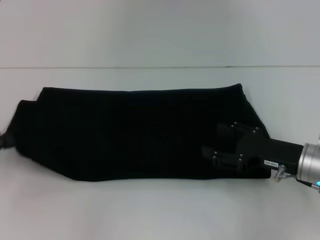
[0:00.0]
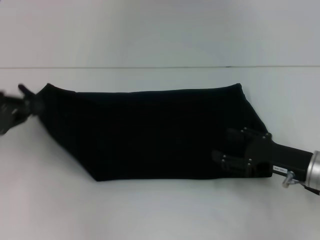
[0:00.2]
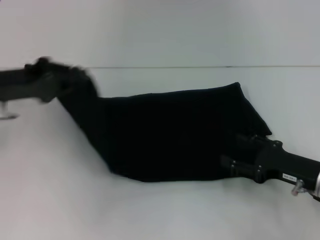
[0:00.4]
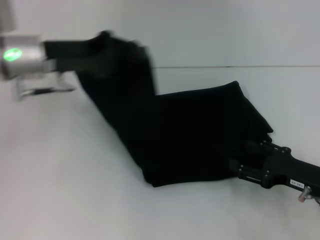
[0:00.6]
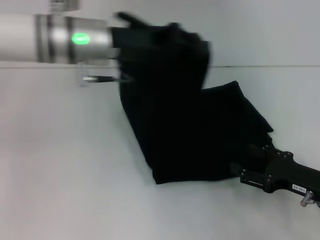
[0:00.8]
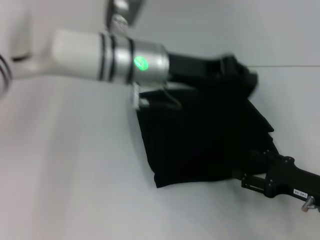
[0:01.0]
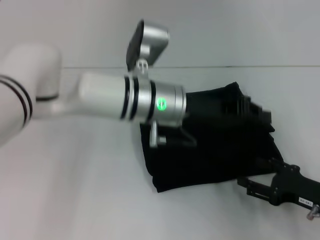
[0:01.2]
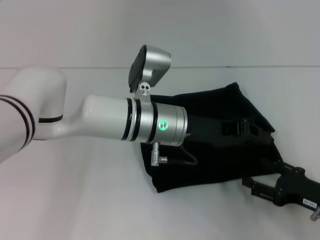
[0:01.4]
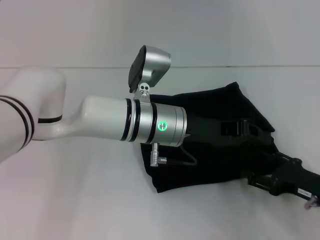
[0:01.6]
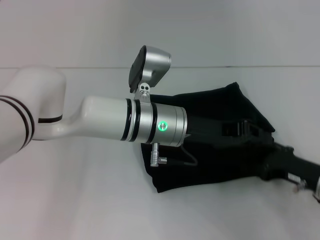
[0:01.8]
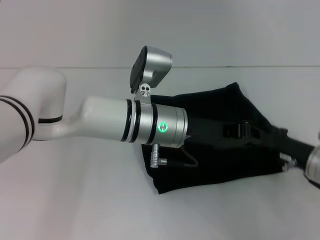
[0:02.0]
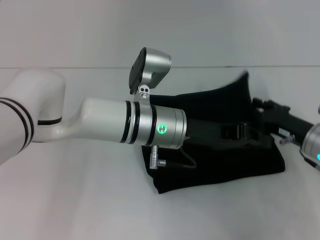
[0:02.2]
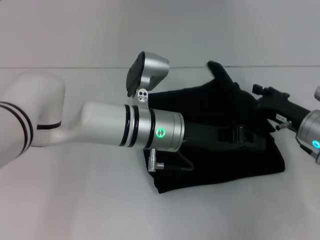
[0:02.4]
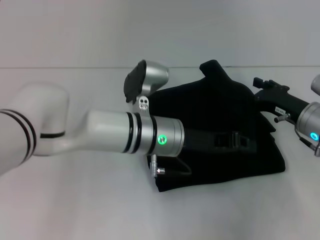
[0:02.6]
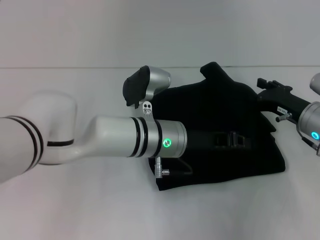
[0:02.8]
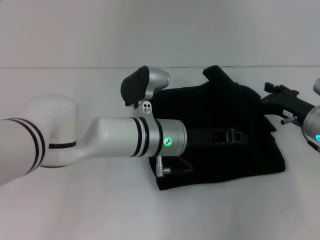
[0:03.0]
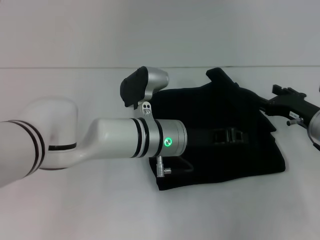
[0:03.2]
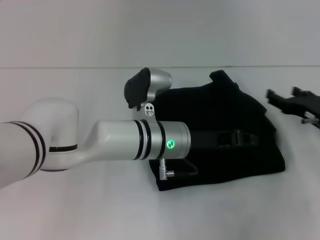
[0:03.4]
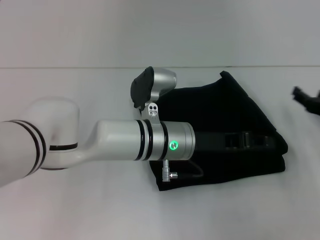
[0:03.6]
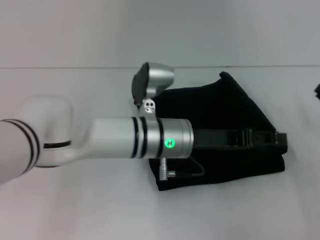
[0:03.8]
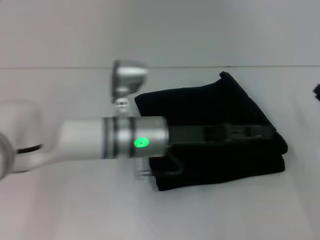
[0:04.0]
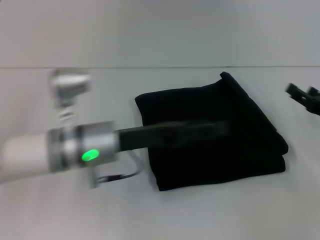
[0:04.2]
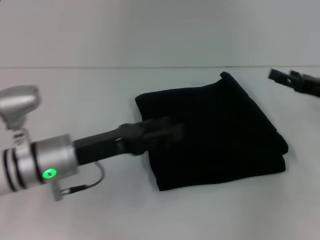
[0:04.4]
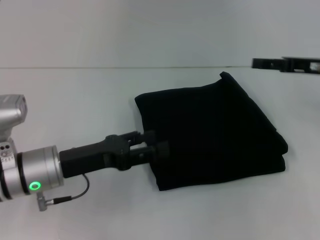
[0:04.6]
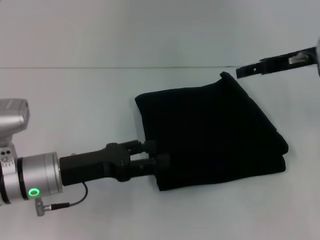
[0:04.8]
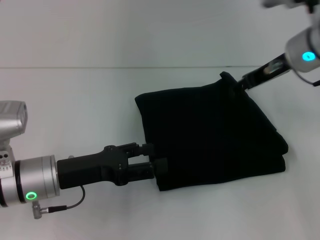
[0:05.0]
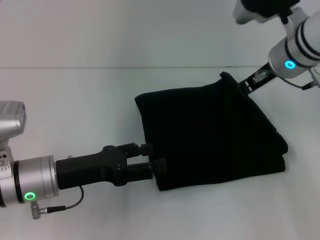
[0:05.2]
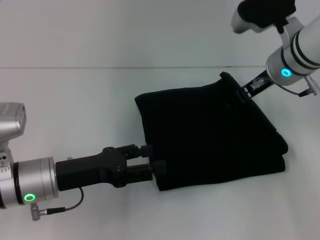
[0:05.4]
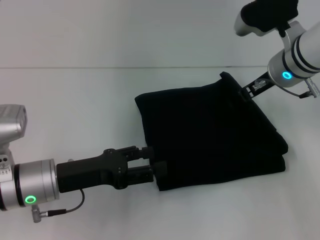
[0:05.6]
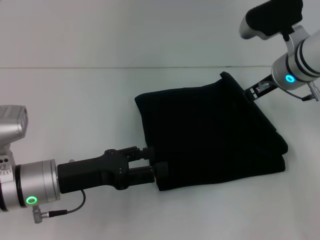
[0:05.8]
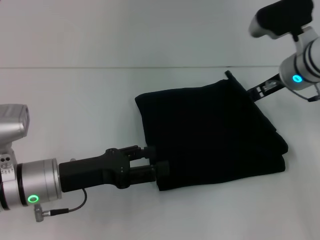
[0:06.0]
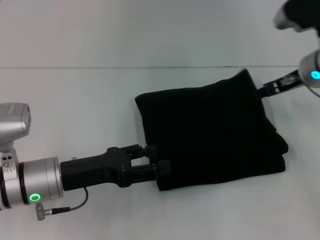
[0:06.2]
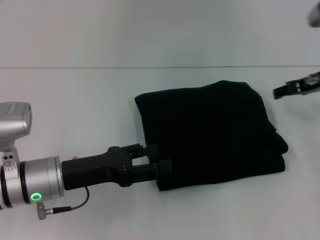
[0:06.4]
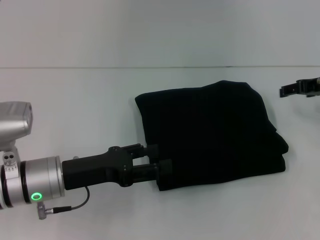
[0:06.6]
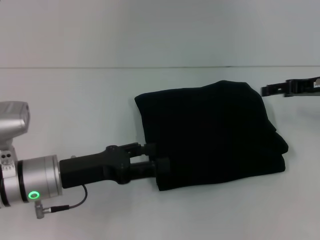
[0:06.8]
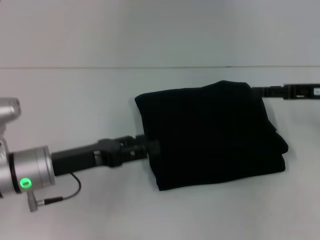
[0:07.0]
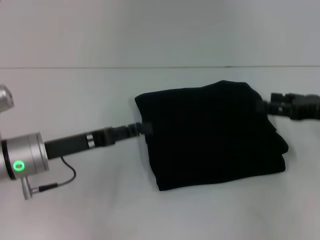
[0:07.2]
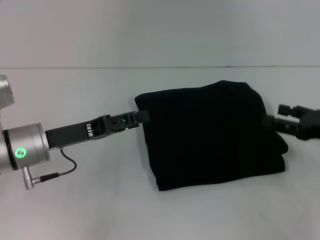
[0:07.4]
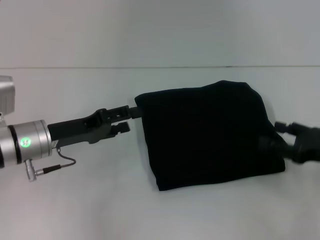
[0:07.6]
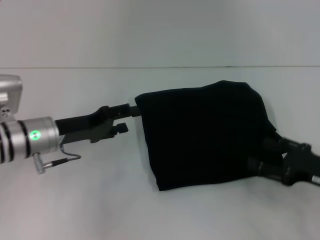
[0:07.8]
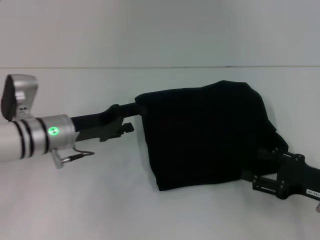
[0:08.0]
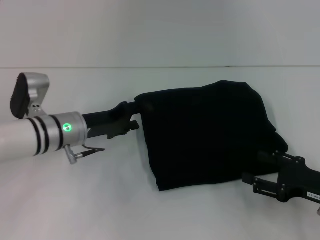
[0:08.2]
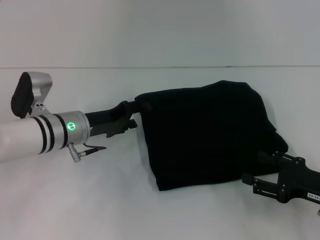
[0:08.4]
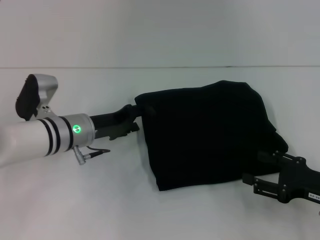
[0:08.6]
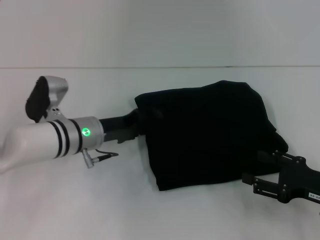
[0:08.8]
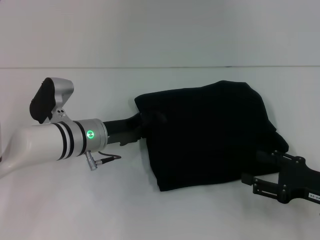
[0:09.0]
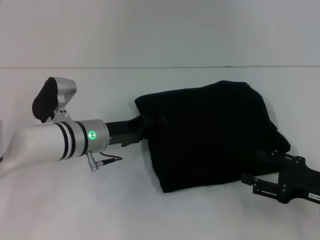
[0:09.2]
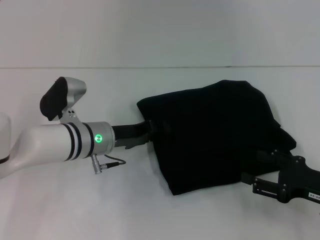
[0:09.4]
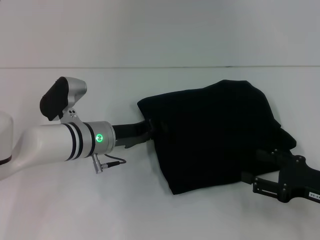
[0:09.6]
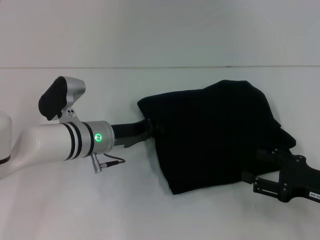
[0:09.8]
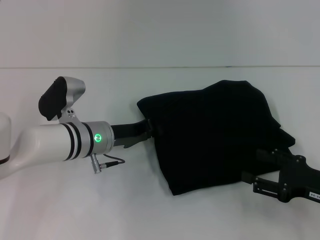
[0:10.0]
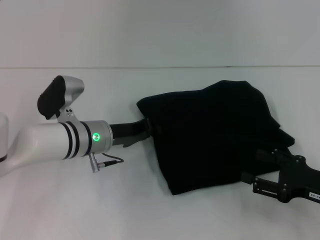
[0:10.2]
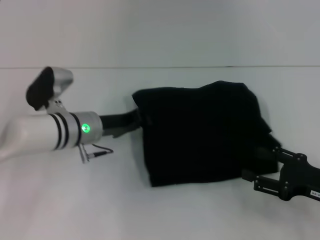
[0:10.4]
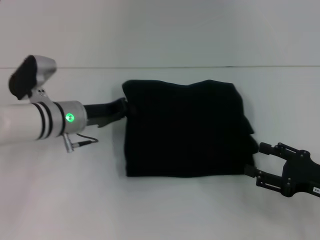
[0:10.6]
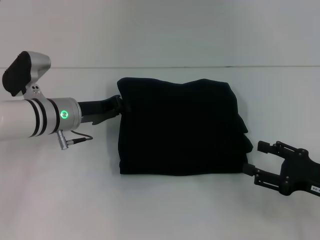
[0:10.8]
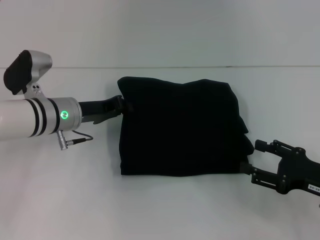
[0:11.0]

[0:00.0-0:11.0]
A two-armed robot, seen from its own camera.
Step, 0:00.0 to 0:04.2: Fold the clothes with your left hand.
0:00.0 to 0:01.6: The left gripper moves to the right, approximately 35 cm. Meanwhile the right gripper travels backward by roughly 5 cm.
0:01.6 to 0:03.2: The right gripper is displaced forward by about 10 cm.
0:03.2 to 0:04.8: The left gripper shifts approximately 20 cm to the left and backward, and opens, while the right gripper moves upward, about 15 cm.
0:04.8 to 0:06.2: The right gripper goes to the left and returns, approximately 10 cm each way.
0:06.2 to 0:07.8: The right gripper moves backward, downward and to the right, roughly 20 cm, while the left gripper heads forward, covering some 5 cm.
0:07.8 to 0:09.4: The left gripper moves to the right, roughly 10 cm.
0:09.4 to 0:11.0: The left gripper heads to the left, covering roughly 5 cm, and closes.

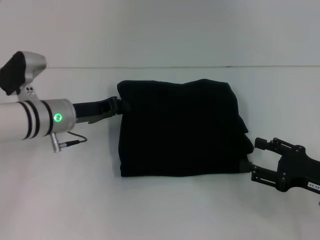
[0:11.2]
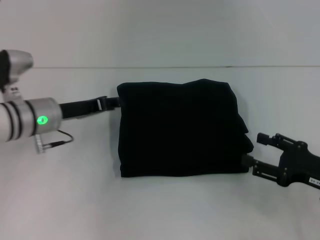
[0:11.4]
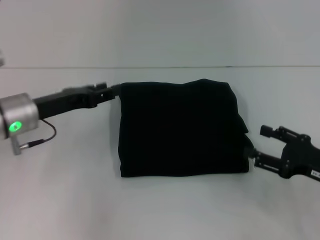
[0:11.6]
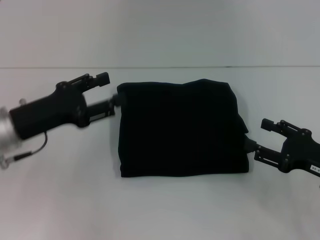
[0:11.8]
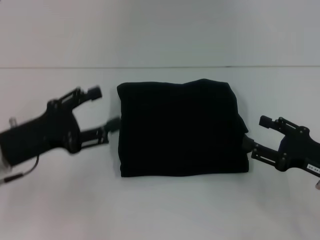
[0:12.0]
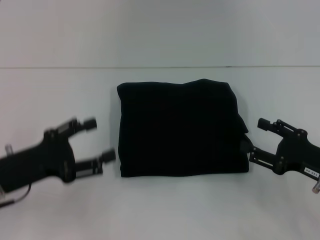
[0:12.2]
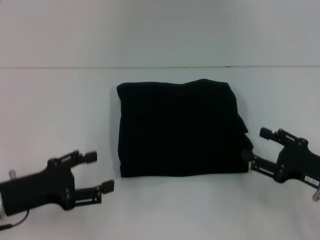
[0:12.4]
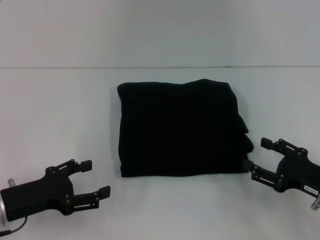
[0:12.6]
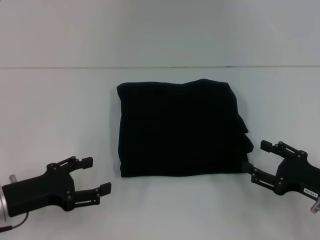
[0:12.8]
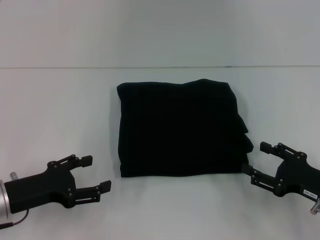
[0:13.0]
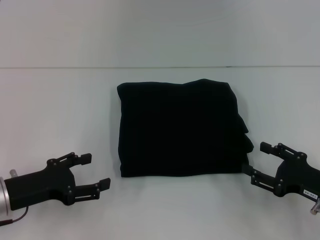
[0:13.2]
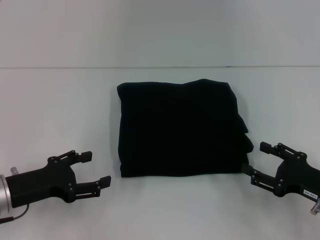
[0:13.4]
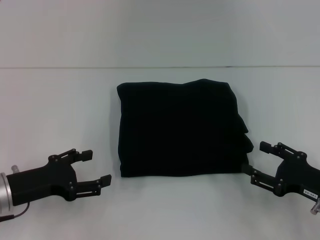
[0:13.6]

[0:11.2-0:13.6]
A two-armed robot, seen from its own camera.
0:11.2 to 0:12.4: The left gripper moves backward and to the left, some 15 cm, and opens.
0:12.4 to 0:13.6: There are only small adjustments of the grippers.

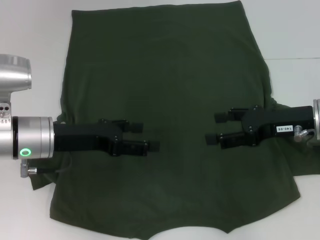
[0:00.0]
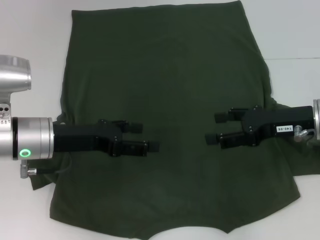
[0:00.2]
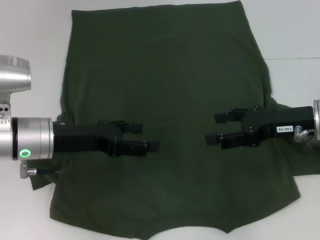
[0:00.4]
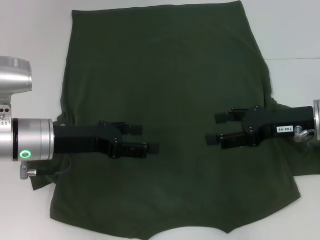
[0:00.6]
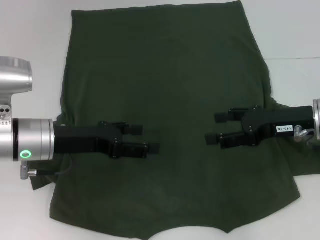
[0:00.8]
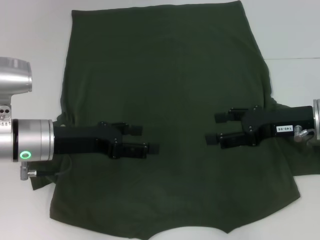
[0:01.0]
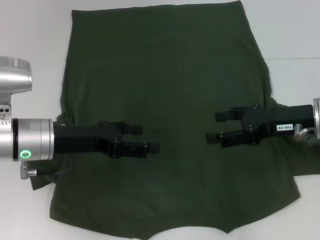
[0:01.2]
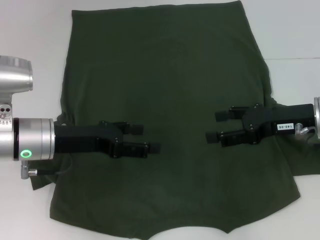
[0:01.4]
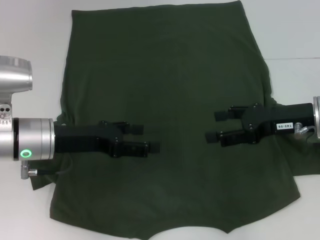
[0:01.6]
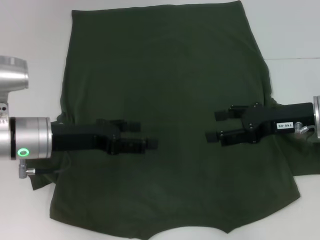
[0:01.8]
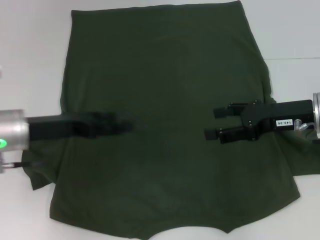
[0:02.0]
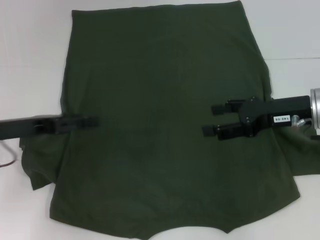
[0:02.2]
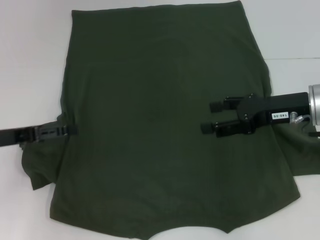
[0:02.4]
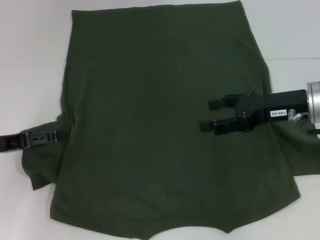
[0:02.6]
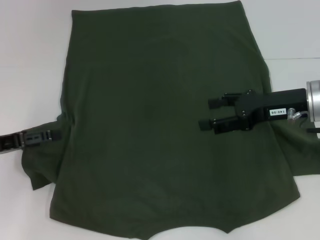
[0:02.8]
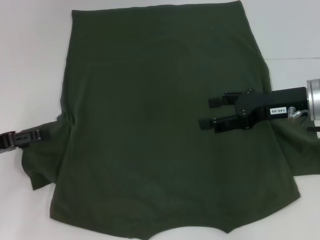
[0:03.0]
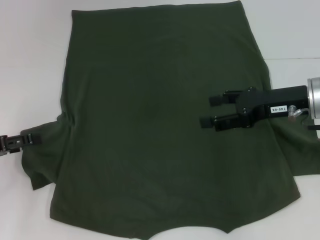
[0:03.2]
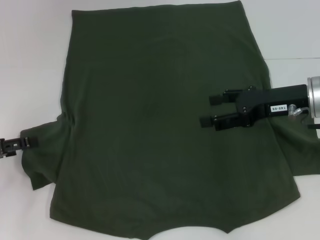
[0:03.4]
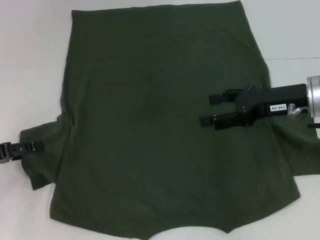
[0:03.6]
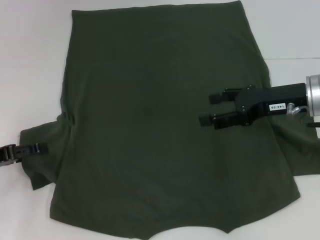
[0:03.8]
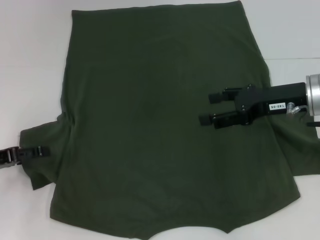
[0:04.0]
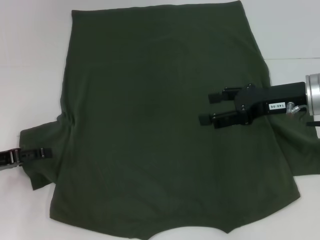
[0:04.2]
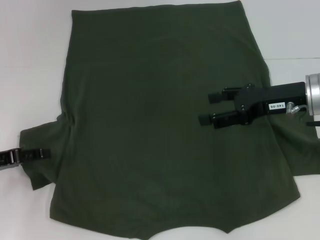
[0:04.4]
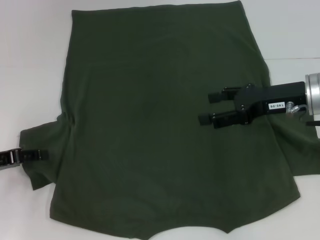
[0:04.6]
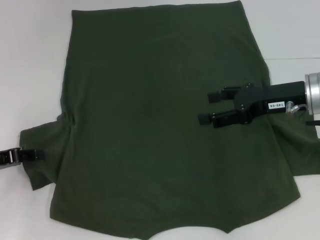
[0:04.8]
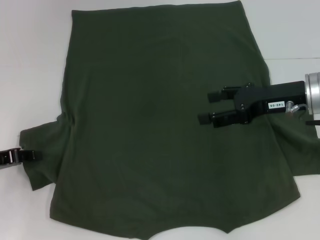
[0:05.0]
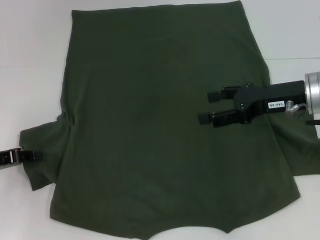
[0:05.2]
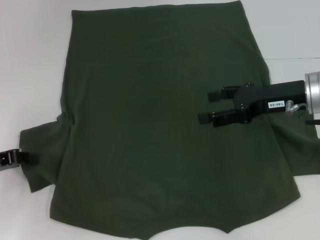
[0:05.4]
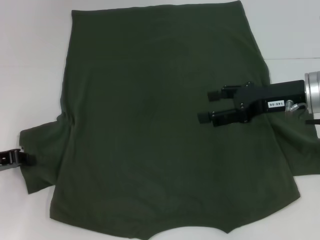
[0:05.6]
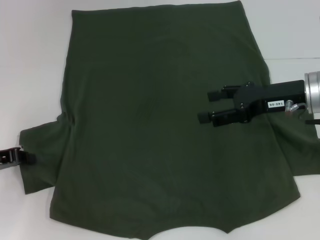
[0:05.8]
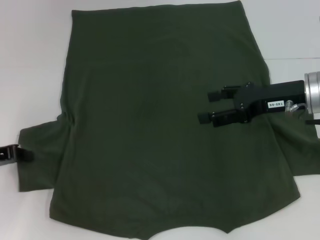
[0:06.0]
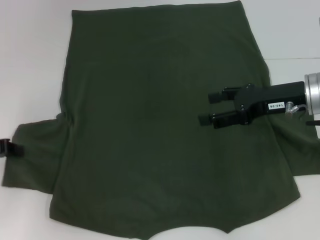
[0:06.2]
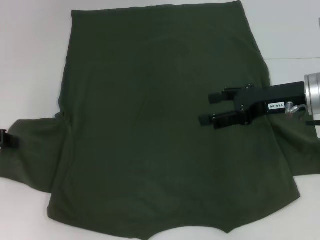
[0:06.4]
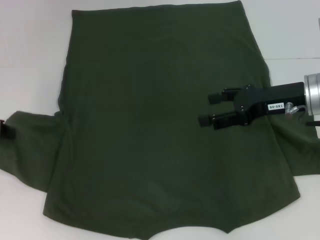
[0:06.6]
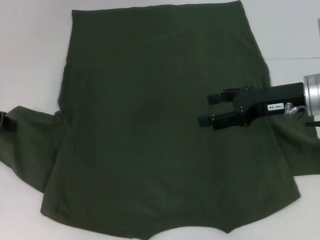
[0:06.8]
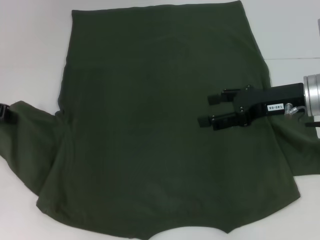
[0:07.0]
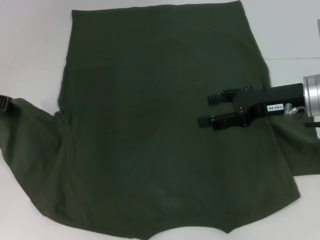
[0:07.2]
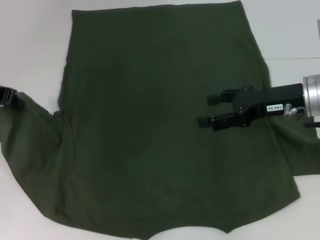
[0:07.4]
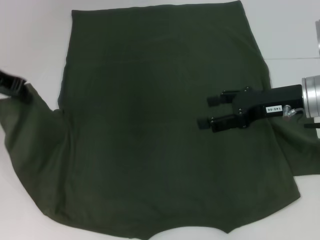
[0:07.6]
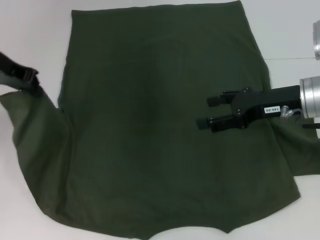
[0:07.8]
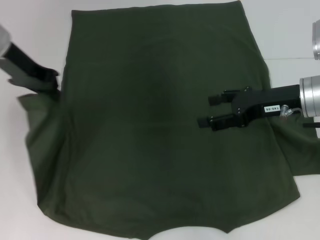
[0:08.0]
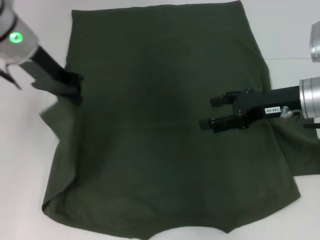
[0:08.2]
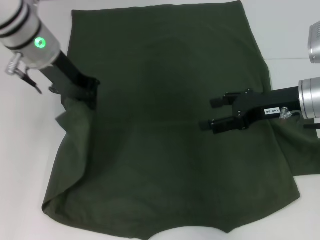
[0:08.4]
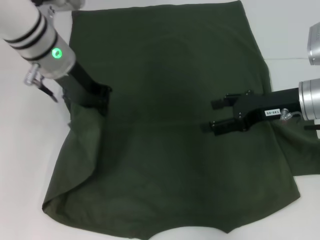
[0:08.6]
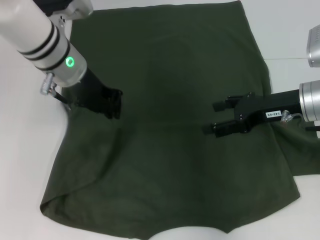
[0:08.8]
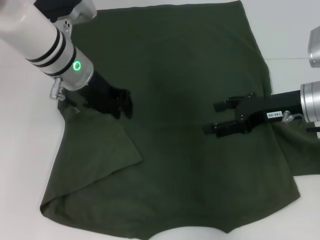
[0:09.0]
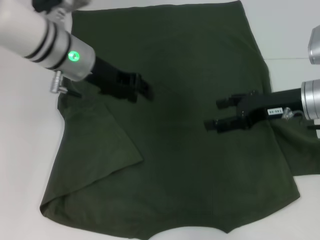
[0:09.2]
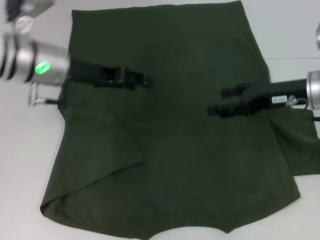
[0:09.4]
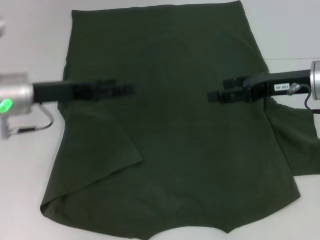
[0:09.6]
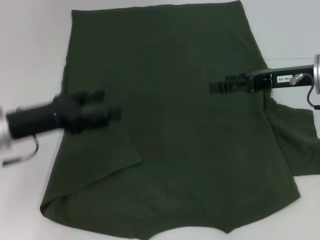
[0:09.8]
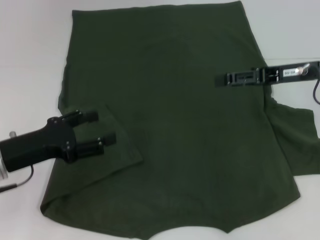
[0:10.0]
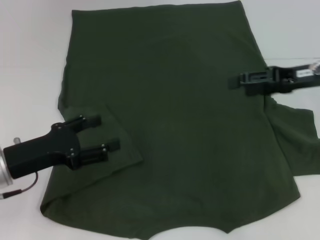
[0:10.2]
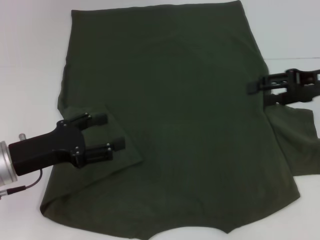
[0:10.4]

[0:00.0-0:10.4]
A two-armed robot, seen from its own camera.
Step, 0:00.0 to 0:08.8: Fold the bottom left sleeve with your left hand.
0:00.0 to 0:01.4: Neither gripper changes place.
0:01.4 to 0:03.0: The left gripper moves to the left, some 15 cm.
0:03.0 to 0:04.4: There are only small adjustments of the grippers.
0:04.4 to 0:06.0: The left gripper closes up.
0:06.0 to 0:07.4: The left gripper moves upward and forward, approximately 15 cm.
0:07.4 to 0:09.0: The left gripper goes about 15 cm to the right.
0:09.0 to 0:10.4: The right gripper moves to the right, approximately 5 cm. The left gripper travels backward, to the left and downward by roughly 20 cm, and opens.
